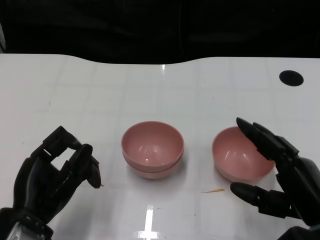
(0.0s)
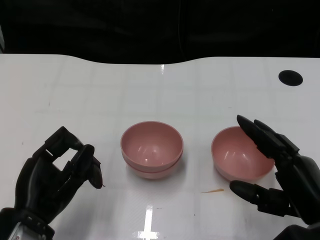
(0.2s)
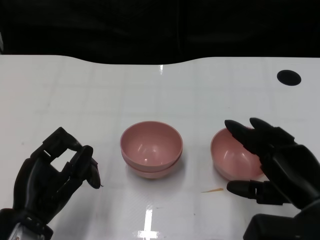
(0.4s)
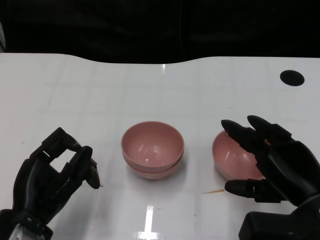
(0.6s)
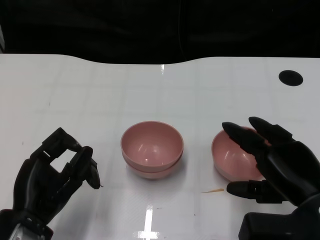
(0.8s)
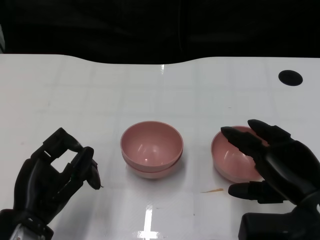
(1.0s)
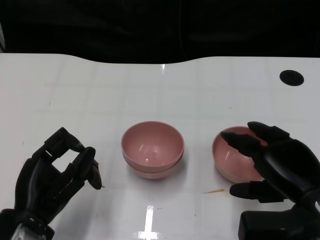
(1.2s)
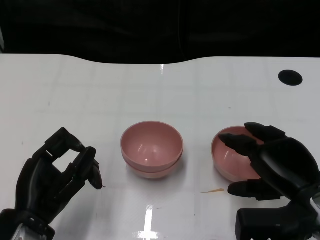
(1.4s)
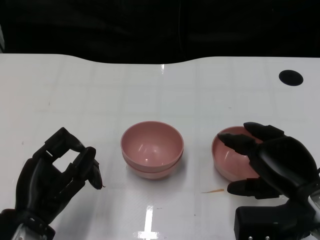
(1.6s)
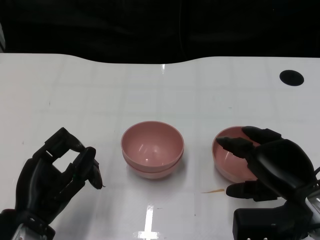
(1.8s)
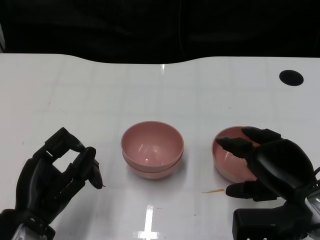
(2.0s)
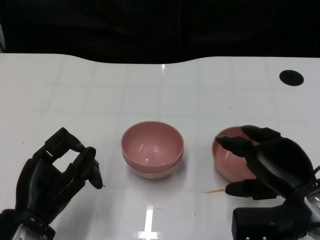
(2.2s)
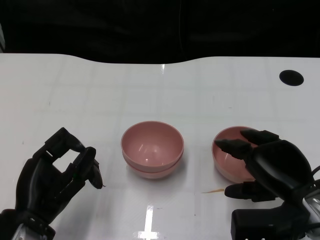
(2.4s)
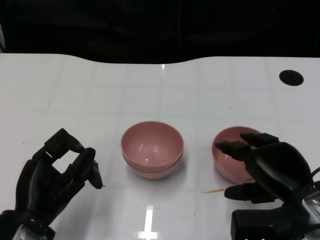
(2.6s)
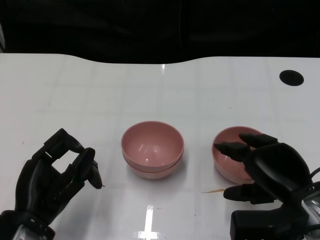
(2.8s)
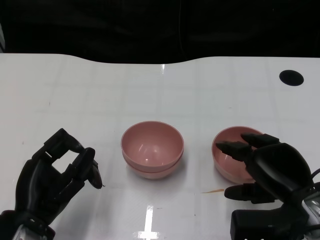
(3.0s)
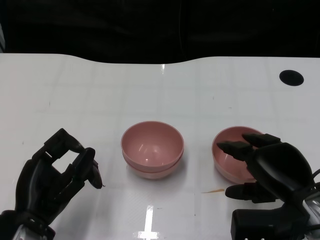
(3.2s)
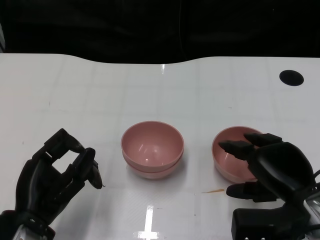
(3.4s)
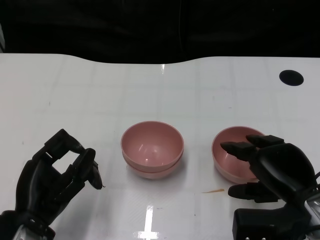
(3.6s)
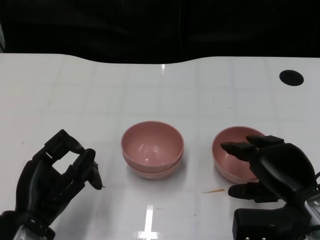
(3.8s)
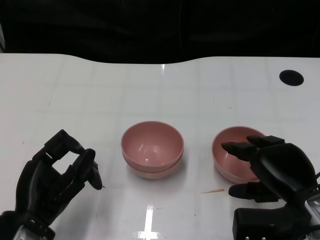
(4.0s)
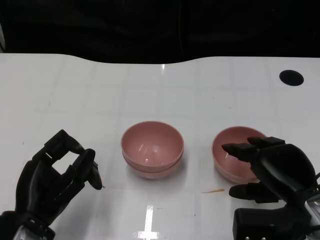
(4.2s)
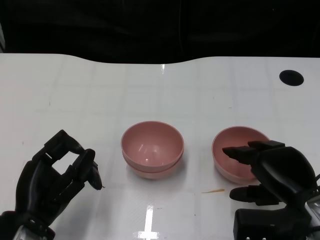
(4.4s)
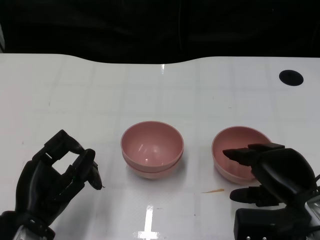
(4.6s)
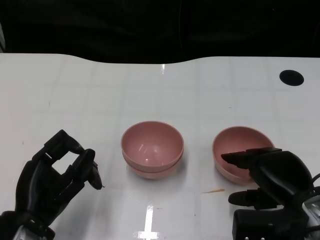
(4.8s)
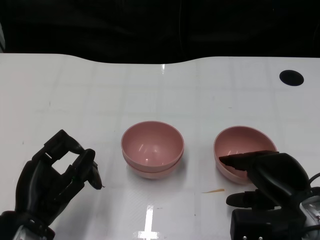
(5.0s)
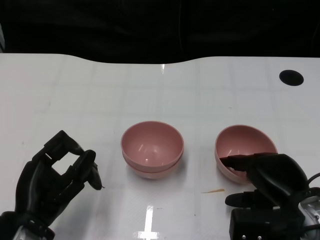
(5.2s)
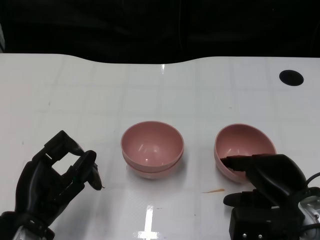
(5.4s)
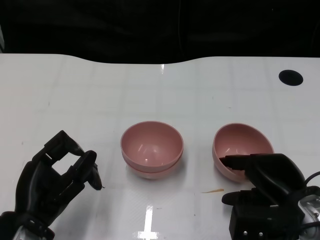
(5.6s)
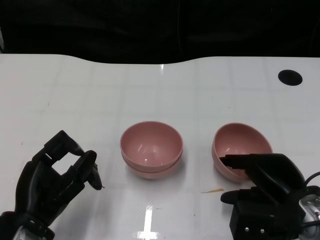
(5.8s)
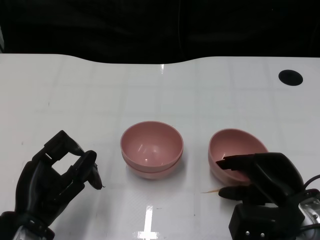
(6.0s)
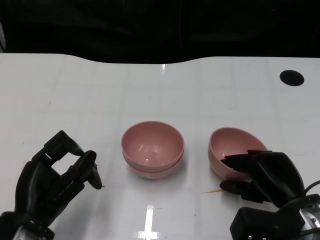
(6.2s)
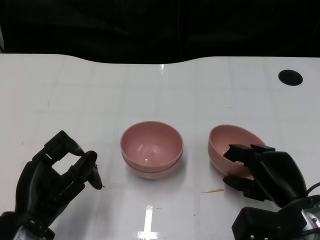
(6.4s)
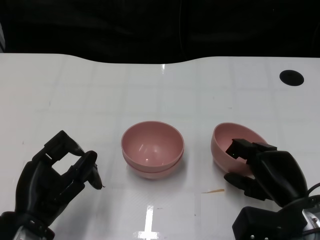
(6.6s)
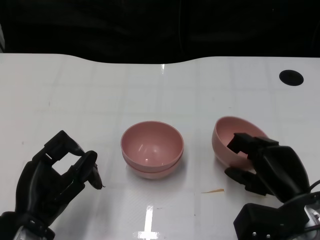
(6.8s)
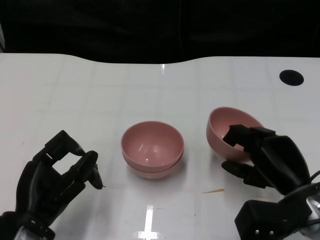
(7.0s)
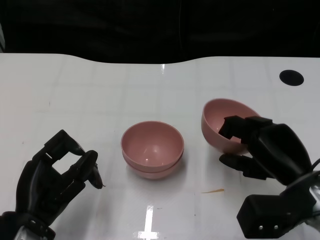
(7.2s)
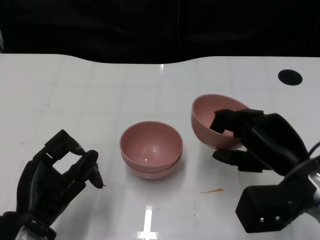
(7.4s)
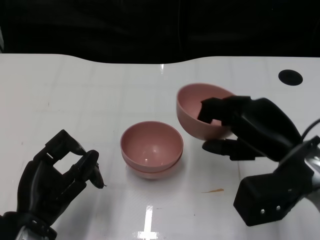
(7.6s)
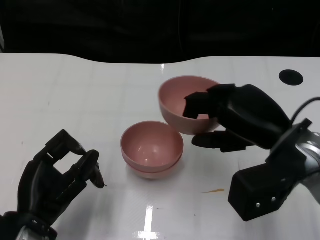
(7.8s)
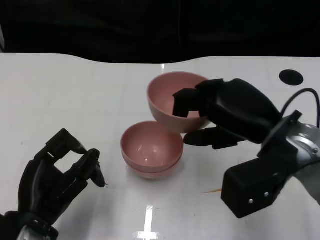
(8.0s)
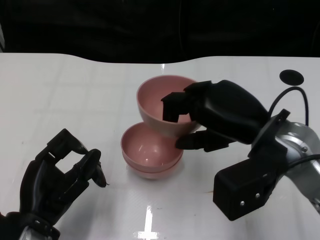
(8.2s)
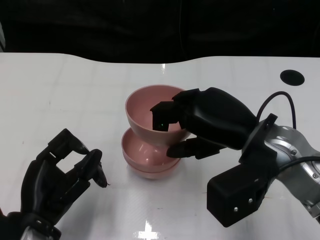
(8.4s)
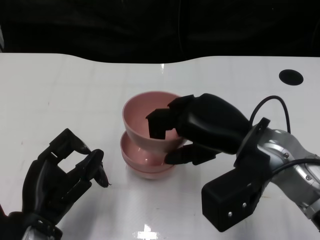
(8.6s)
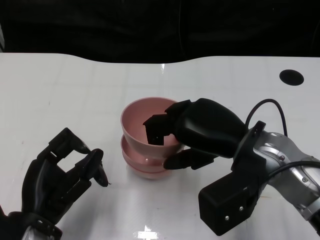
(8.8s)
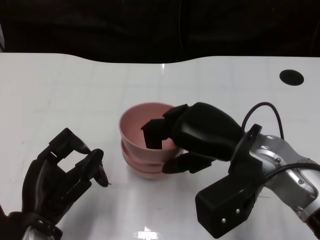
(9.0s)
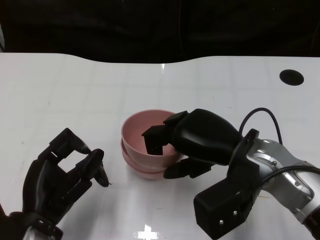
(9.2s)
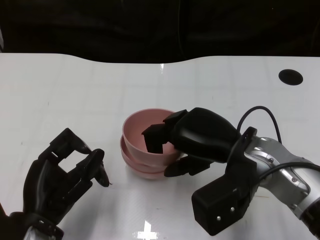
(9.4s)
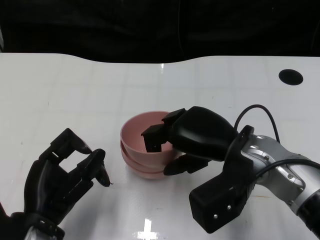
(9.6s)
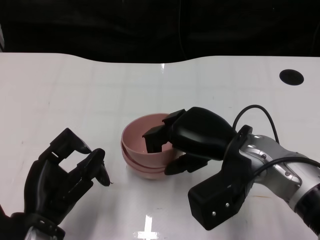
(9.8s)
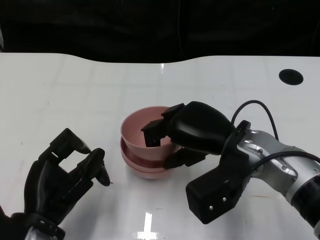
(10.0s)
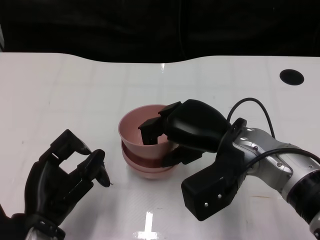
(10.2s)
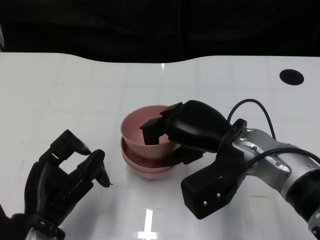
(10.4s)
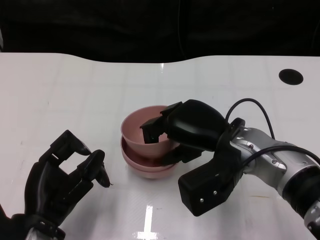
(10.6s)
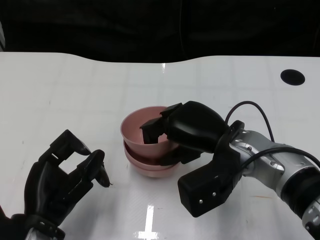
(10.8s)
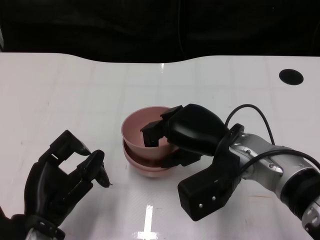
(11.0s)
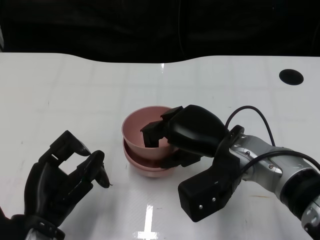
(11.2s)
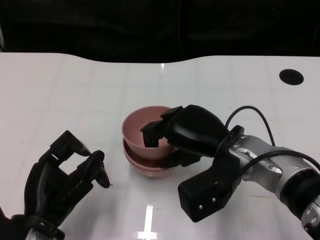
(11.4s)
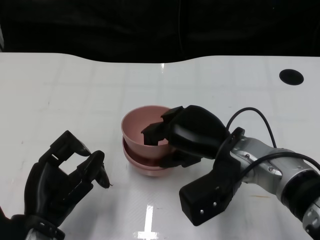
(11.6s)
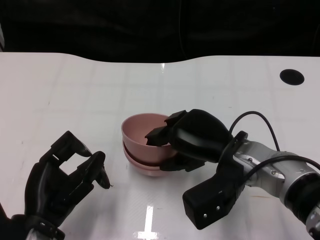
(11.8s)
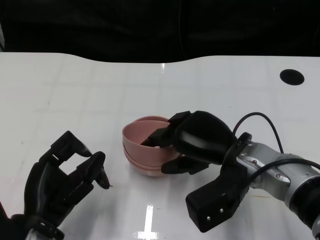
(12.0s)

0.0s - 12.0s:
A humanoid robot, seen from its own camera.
Task of the whole recording: Pick up the bowl on one side of the table and place it on top of the middle bowl, then pick up the bowl on the other side of the table and place it on top of the middle bowls.
Step, 0.0s - 6.8s: Grasp the bowl on the right with the right gripper.
1.6s - 3.0s: The hands stay close to where they were, moving slightly.
3.0s - 4.4s: Both hands stay put.
4.4s - 6.0s: The hands make only small movements.
6.0s - 7.6s: The right hand is displaced upward by about 10 cm.
7.6s - 9.0s: The right hand goes about 5 cm to the left.
9.0s - 12.0s: The hands move only a little.

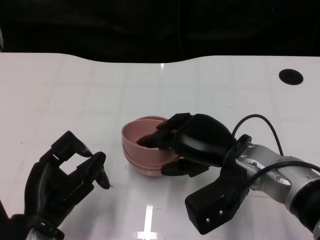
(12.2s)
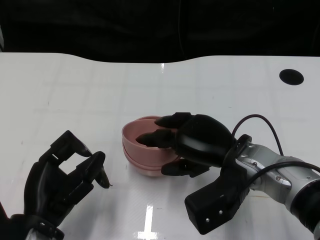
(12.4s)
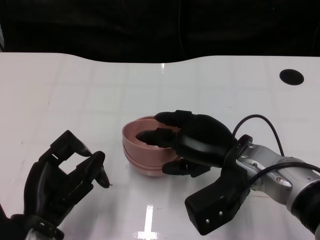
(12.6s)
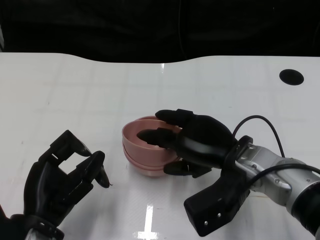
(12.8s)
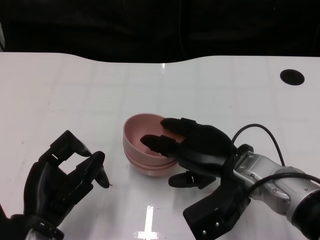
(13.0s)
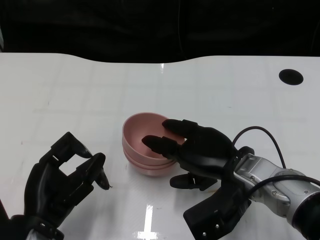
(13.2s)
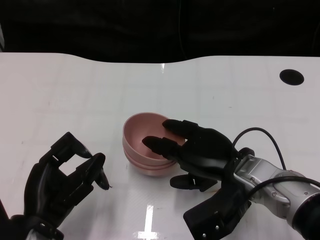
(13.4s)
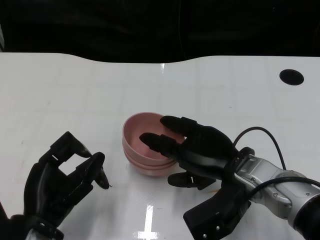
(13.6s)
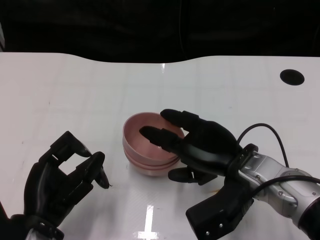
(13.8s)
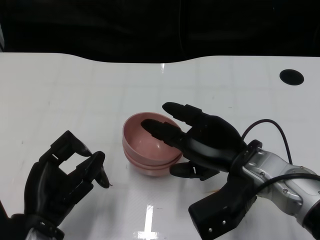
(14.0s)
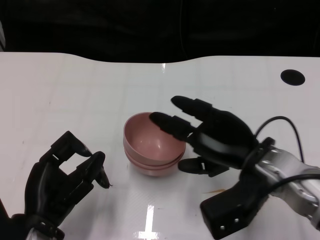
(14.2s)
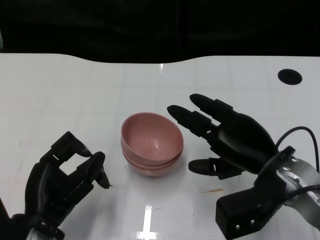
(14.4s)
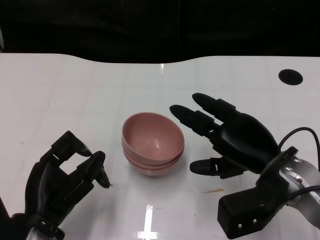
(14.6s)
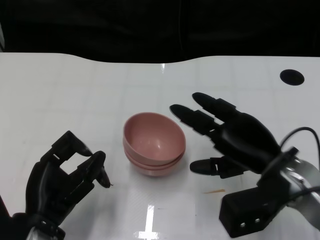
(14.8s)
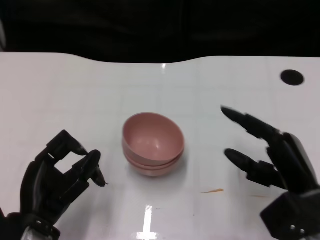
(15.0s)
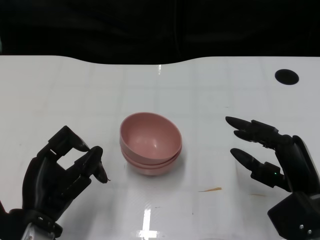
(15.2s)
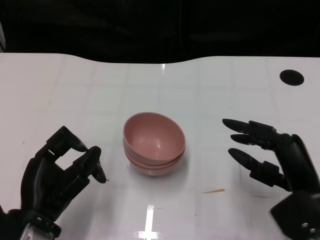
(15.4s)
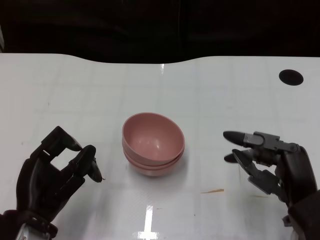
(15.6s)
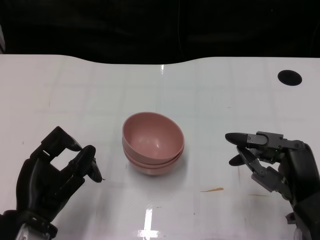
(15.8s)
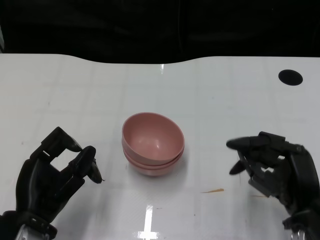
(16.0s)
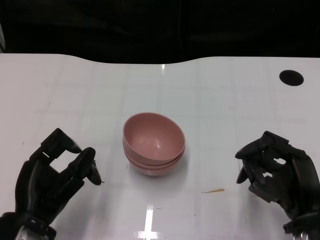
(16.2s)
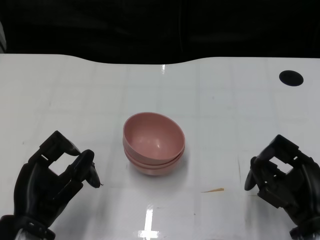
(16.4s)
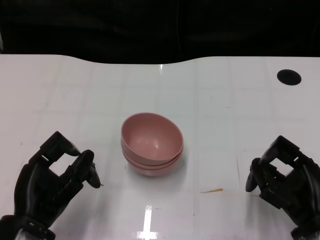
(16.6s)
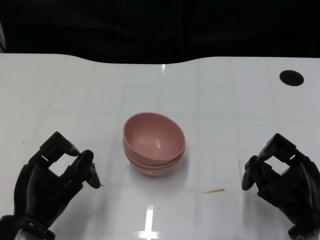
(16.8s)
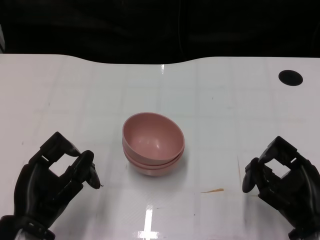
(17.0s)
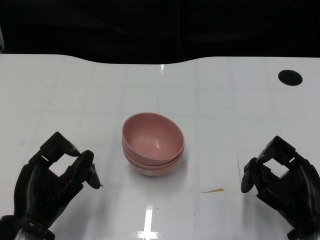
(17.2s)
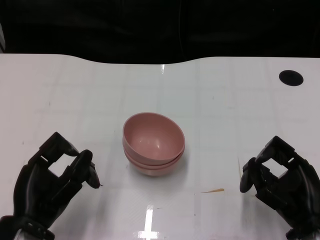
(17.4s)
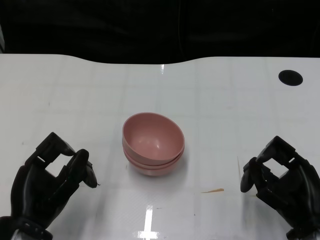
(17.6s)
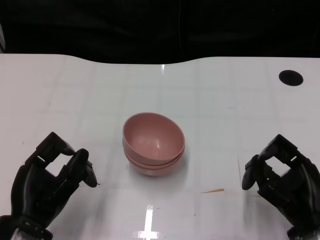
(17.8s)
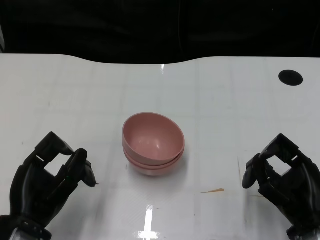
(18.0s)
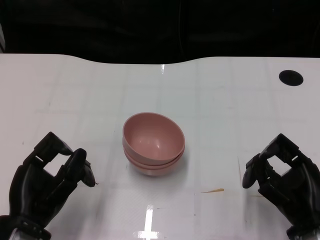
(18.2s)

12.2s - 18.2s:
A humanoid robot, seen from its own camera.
Task of the whole recording: Pick up the bowl on one side of the table and place it on top of the middle bowl, then pick up the bowl on the other side of the table and place it on top of the middle bowls.
12.2s - 13.8s: The hands stay close to where they were, moving slightly.
13.8s - 15.2s: The right hand heads to the right and backward, covering some 10 cm.
16.6s - 18.2s: The hands stay close to where they were, moving slightly.

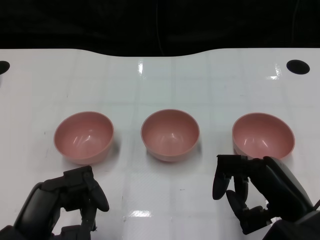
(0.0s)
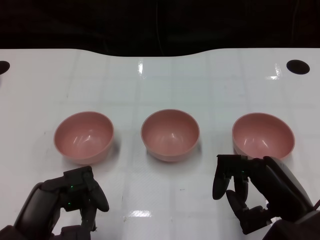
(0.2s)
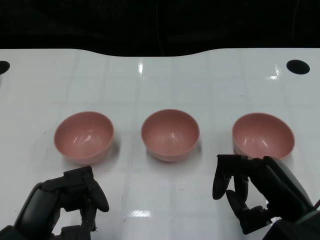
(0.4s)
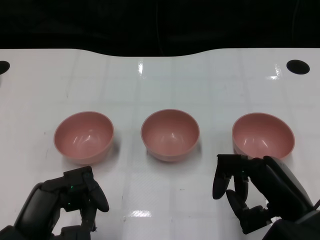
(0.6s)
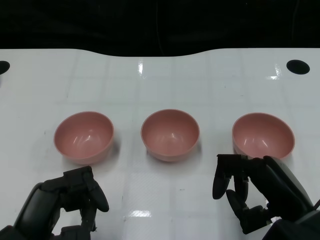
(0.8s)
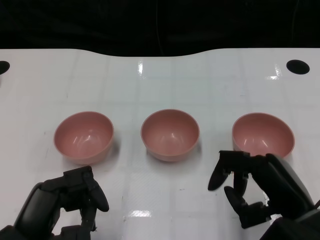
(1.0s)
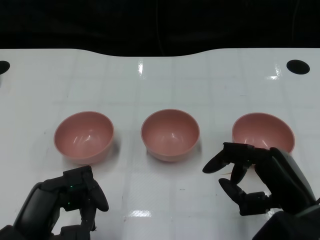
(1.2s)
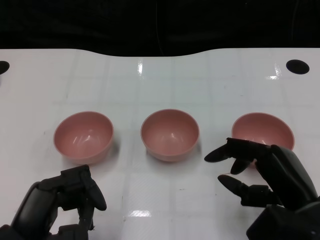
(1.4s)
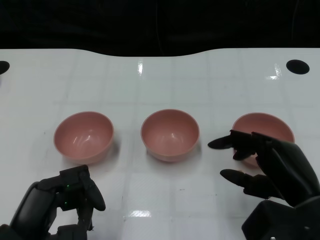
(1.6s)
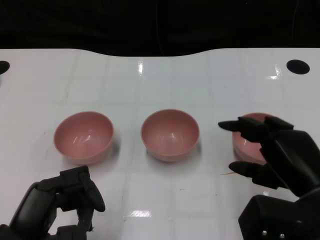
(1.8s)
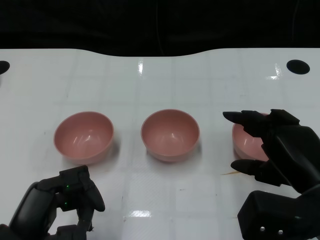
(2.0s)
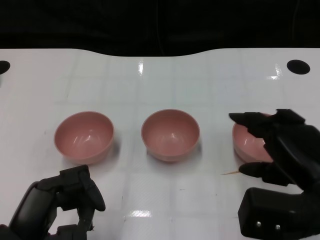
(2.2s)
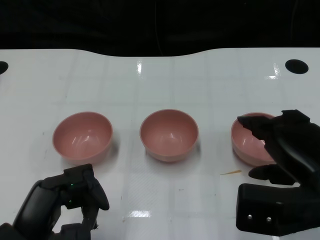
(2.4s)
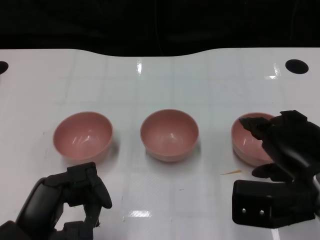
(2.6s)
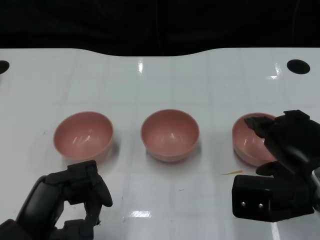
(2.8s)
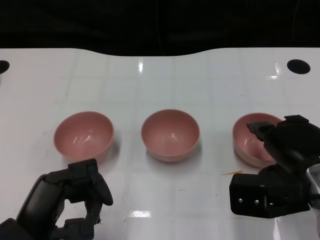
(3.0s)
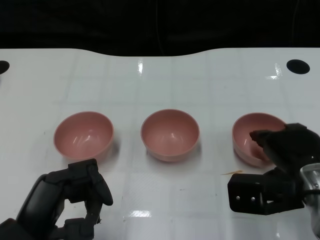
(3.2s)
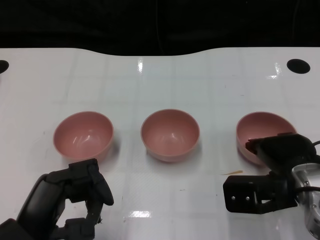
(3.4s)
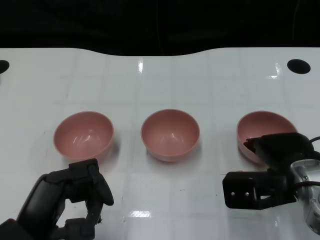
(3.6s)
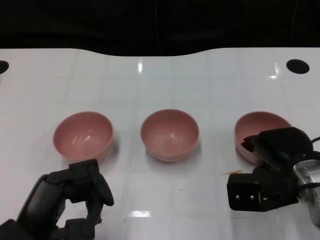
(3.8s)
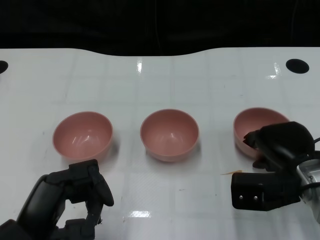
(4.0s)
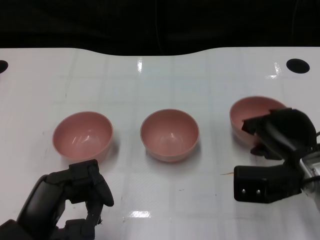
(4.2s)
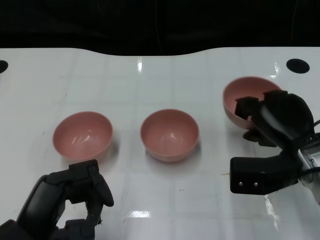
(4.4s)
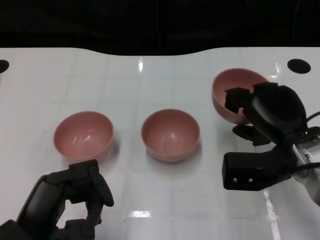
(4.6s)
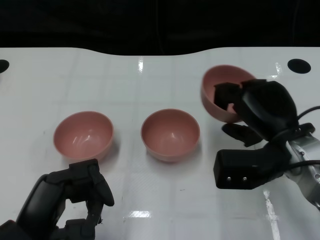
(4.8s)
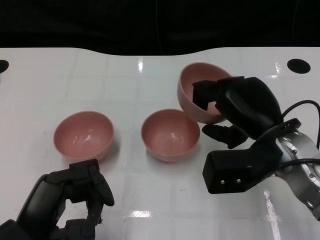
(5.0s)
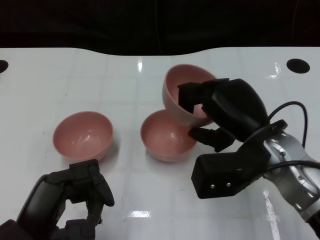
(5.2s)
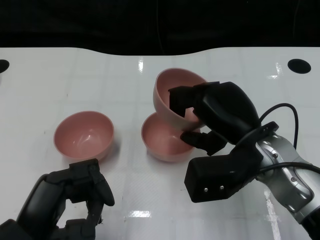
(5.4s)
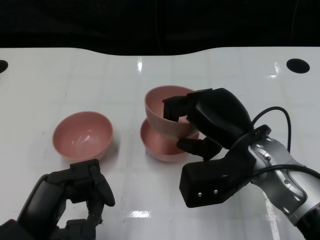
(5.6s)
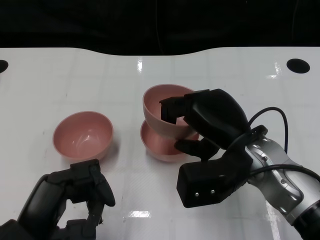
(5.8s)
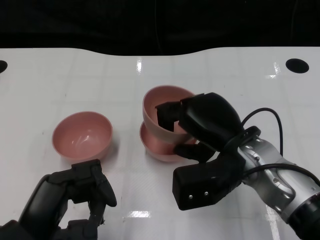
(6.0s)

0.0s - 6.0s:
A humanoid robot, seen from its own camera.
Task of the whole recording: Pick up the bowl on one side of the table and place it on top of the middle bowl, then pick up the bowl on the other side of the table and place it on top of the middle bowls.
Step, 1.0s - 4.0s: Grasp the bowl on the right with the right gripper.
3.0s - 4.4s: The right hand changes place by approximately 5 cm.
4.4s - 6.0s: The right hand goes approximately 10 cm to the left.
